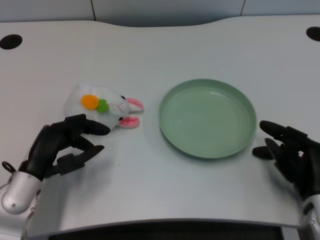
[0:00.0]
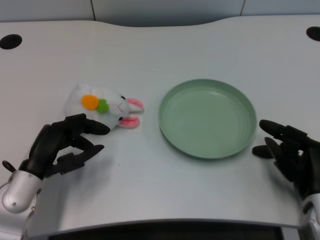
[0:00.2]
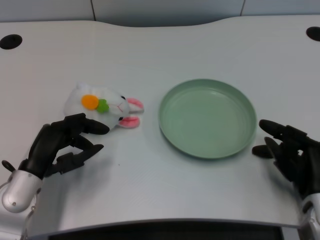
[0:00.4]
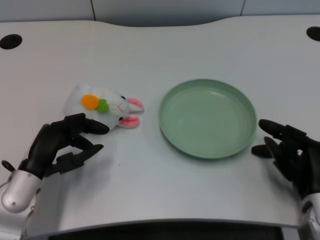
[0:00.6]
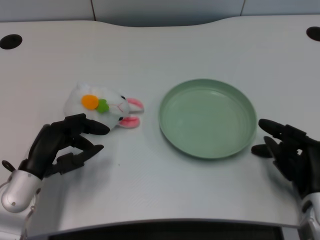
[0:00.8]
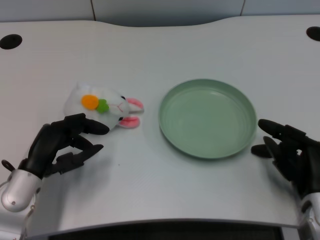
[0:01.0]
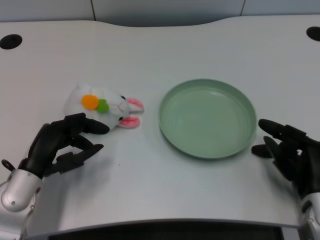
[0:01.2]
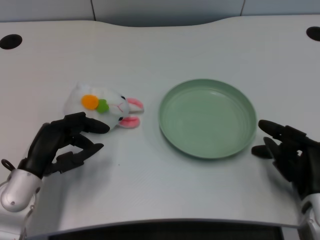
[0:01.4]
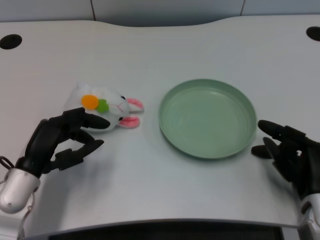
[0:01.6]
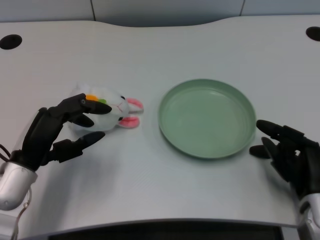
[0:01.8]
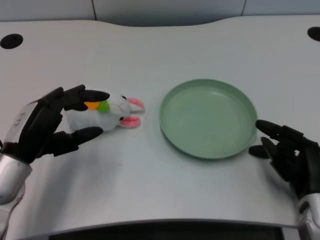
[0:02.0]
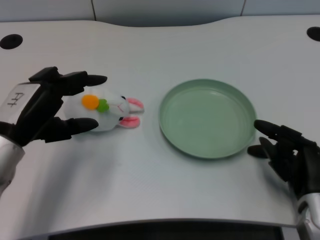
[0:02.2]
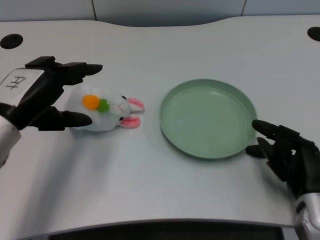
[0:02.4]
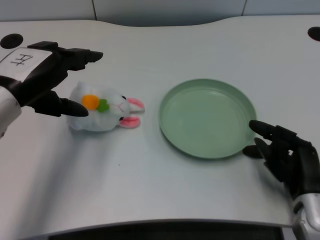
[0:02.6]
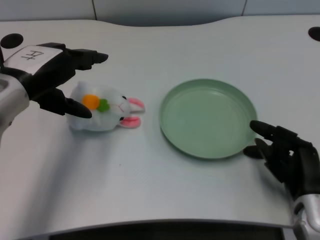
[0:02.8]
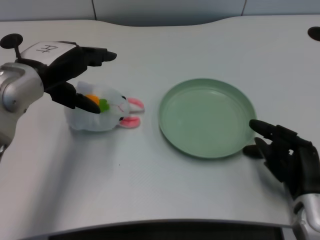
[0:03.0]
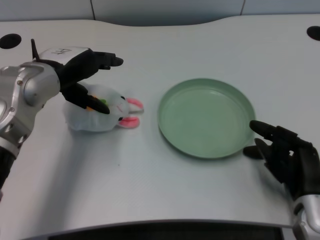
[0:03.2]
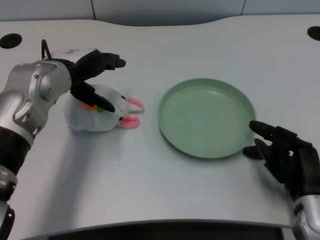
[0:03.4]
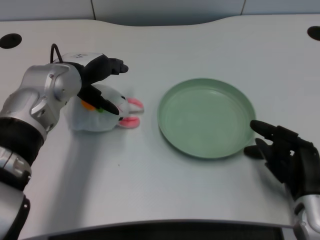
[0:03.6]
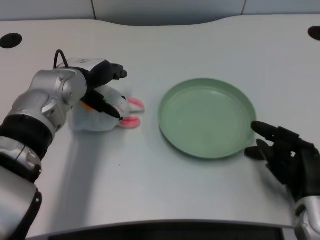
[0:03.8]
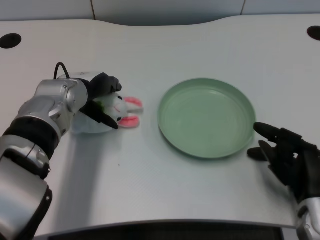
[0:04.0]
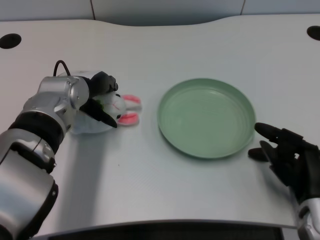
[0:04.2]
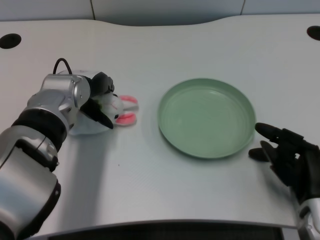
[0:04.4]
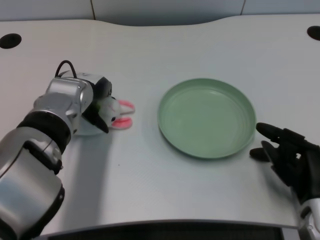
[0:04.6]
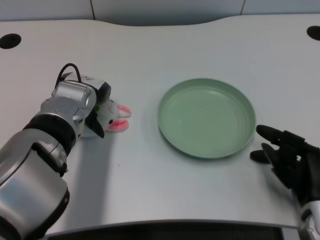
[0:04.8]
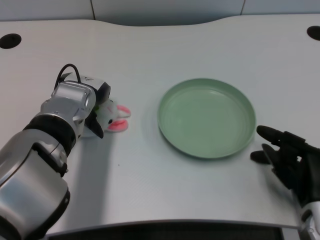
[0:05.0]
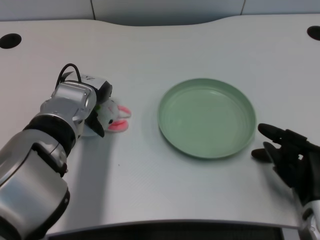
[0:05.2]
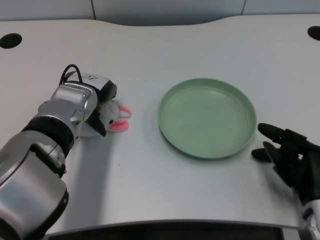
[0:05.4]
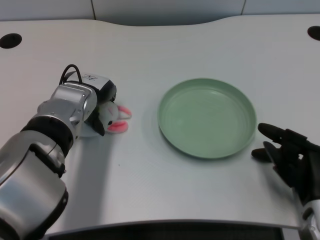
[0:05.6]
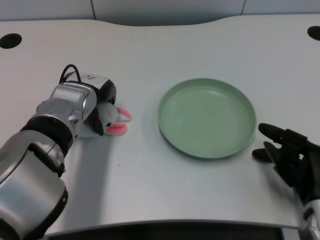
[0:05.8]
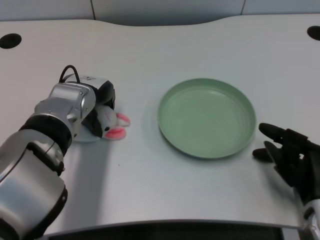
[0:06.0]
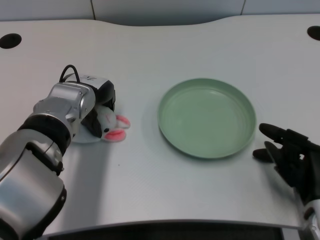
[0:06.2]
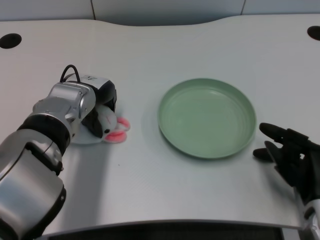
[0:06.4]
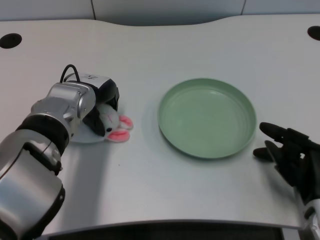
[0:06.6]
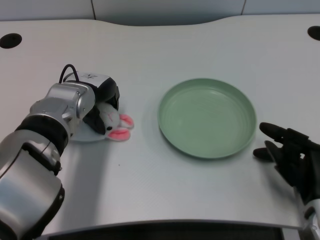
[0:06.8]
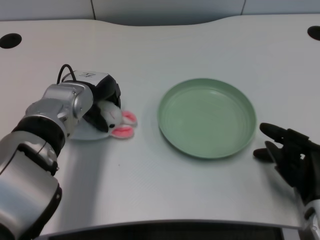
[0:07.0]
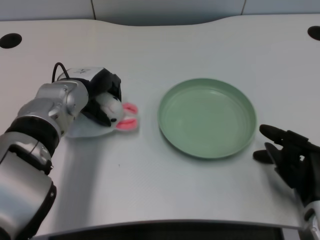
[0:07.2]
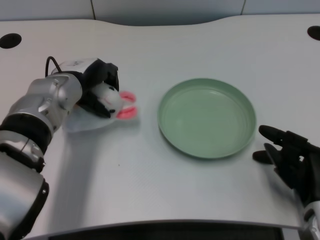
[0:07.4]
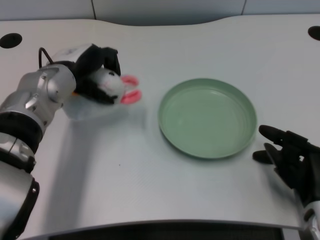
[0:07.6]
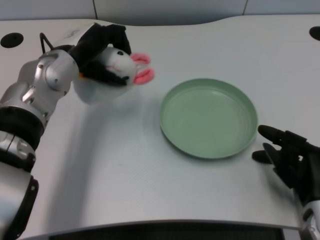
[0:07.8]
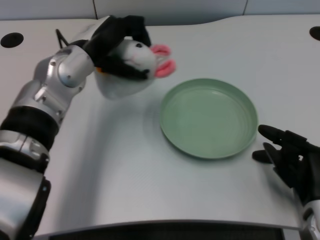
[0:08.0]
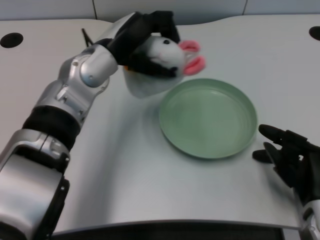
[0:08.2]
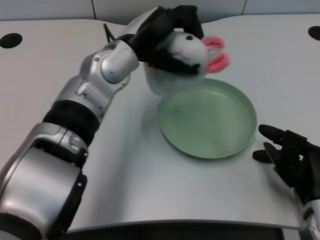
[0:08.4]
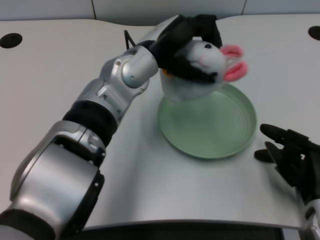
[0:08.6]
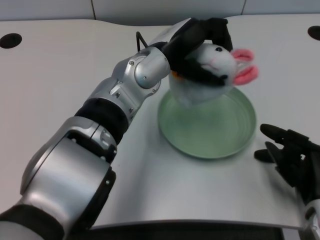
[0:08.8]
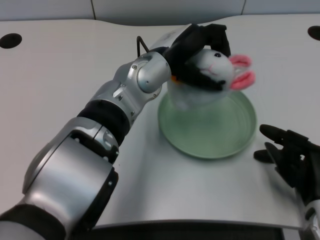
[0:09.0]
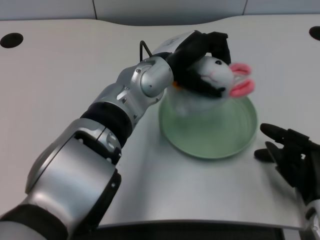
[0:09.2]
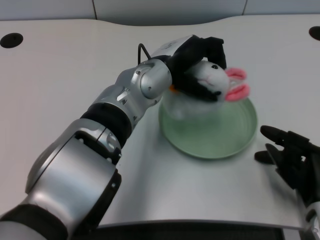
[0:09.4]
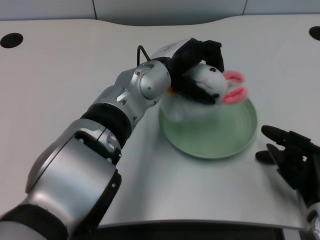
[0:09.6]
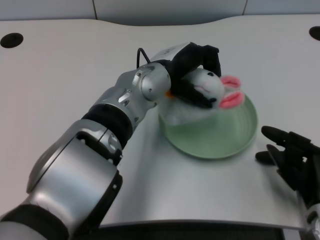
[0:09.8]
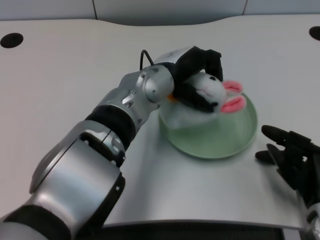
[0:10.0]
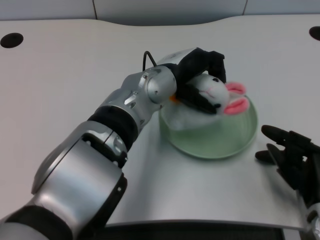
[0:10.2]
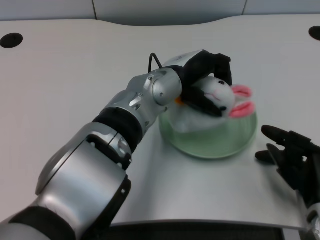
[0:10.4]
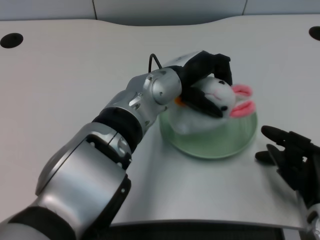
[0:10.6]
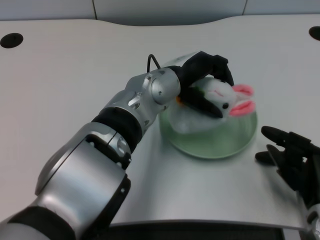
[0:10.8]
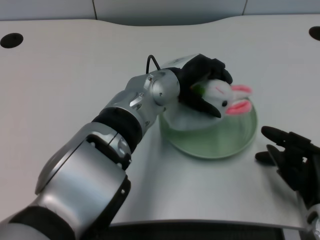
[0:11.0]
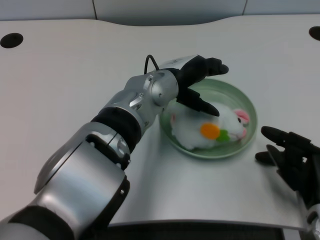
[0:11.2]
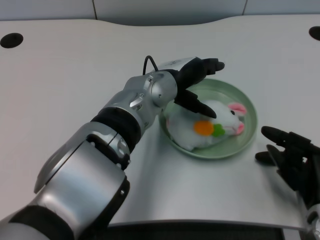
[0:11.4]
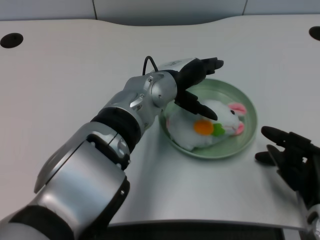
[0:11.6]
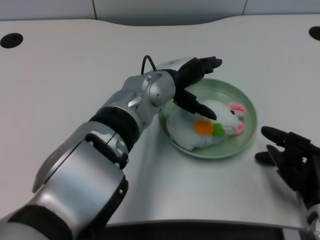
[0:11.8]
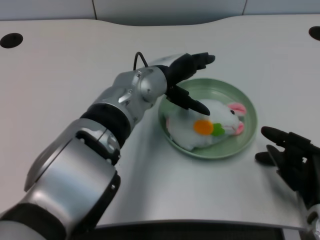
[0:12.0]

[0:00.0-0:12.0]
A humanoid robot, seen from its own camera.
Task of the whole recording: pick up the rabbit doll from the table and place it on the plate.
Step, 0:01.6 to 0:07.0: Grasp the rabbit doll with the left gripper.
Step, 0:07.2 to 0:11.2: Place the rabbit doll into the plate with the left gripper.
0:01.6 to 0:03.0: The left hand moves upward and forward, approximately 15 cm.
0:03.0 to 0:04.4: The left hand is displaced downward and forward by approximately 10 cm.
0:04.4 to 0:06.0: There are only small adjustments of the hands.
0:07.6 to 0:09.0: The left hand is displaced to the right by some 15 cm.
0:10.4 to 0:12.0: There are only small adjustments of the hands.

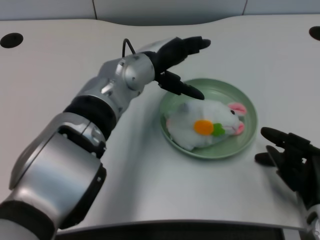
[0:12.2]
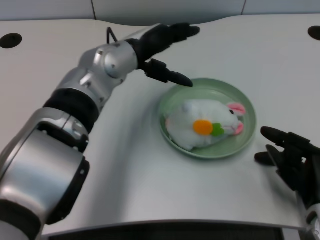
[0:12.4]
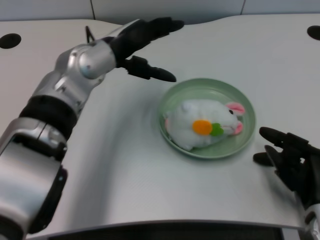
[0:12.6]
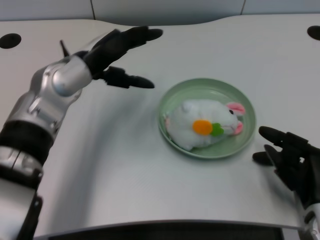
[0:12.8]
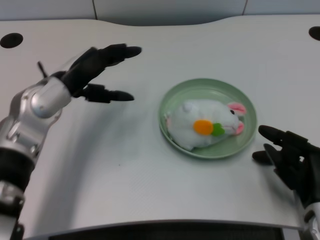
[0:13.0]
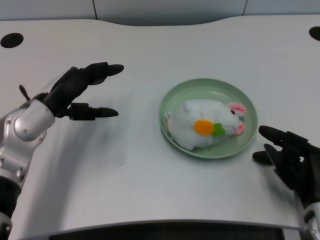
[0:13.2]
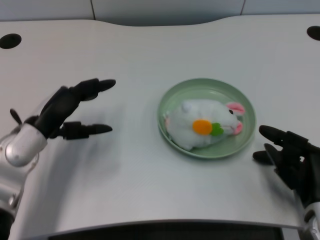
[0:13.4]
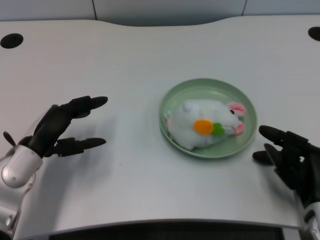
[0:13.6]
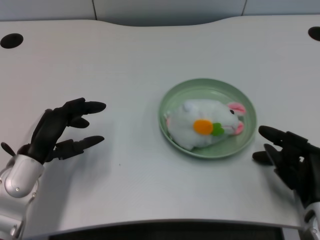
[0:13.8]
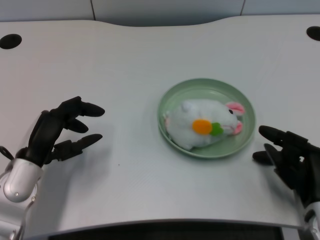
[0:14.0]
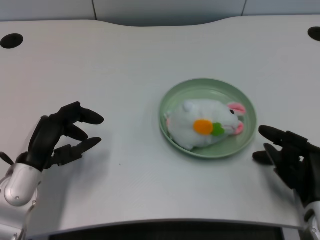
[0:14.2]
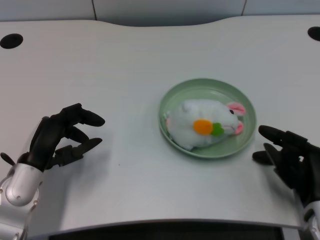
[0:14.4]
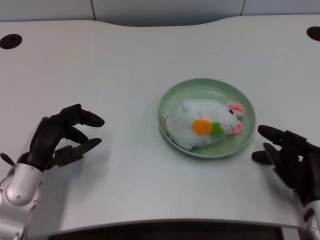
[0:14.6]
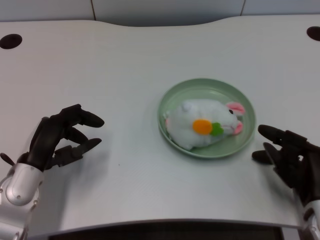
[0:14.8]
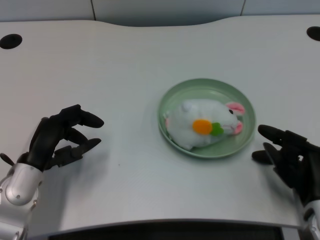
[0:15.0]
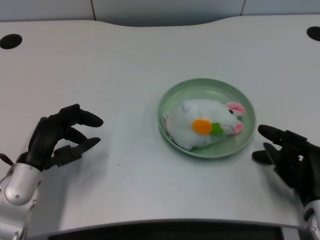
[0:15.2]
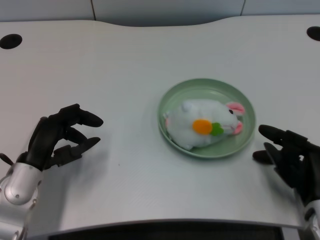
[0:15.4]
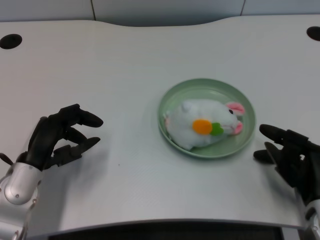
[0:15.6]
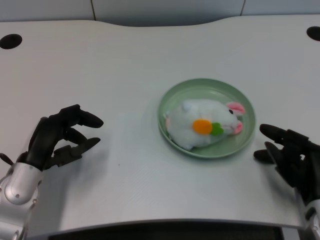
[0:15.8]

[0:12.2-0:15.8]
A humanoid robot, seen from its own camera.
Task of the whole recording: pick up the rabbit doll from the table and place it on the plate.
0:12.2 to 0:14.0: The left hand shifts approximately 20 cm to the left, backward and downward.
0:14.0 to 0:15.8: The hands stay close to where they were, moving slightly.
